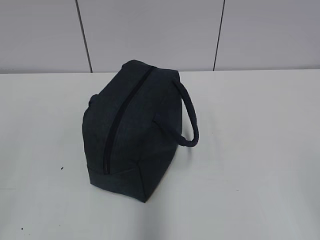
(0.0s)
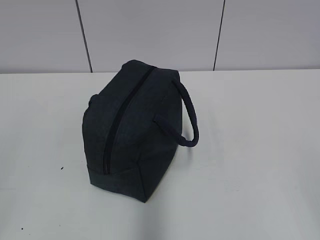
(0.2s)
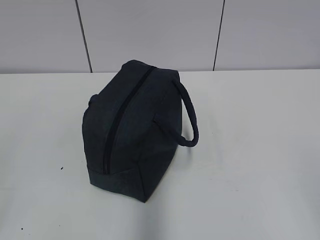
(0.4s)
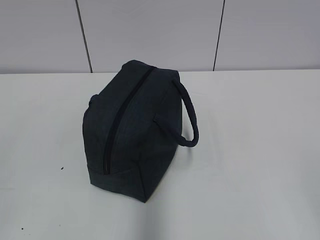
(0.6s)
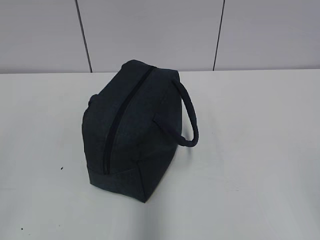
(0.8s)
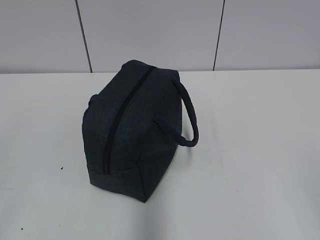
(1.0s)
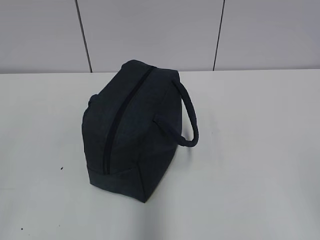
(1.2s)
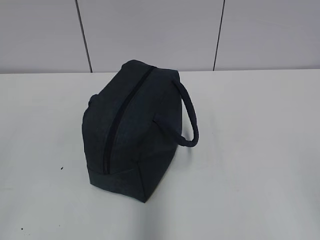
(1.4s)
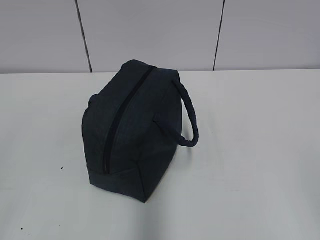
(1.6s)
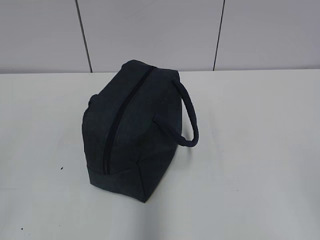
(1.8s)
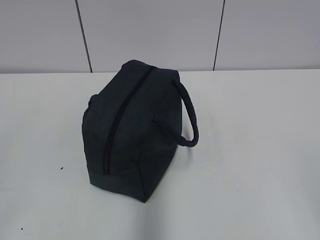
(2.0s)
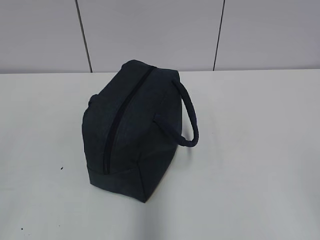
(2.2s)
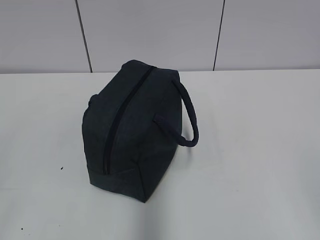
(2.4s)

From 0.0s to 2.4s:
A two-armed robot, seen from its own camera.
From 1.2s to 2.4s: Neither gripper changes place.

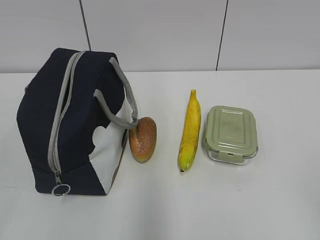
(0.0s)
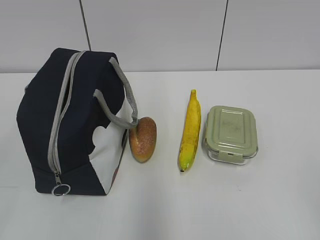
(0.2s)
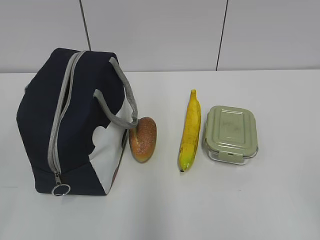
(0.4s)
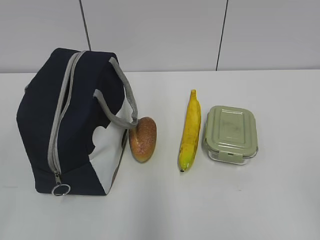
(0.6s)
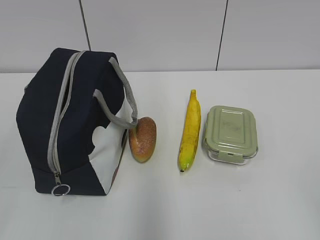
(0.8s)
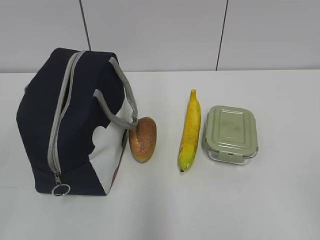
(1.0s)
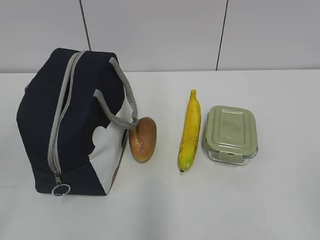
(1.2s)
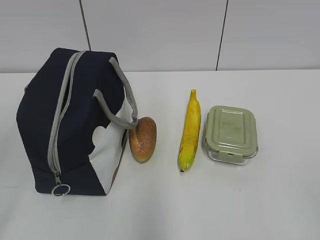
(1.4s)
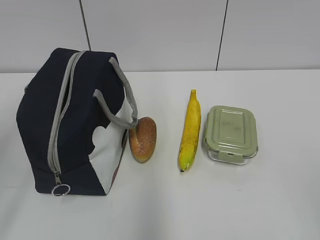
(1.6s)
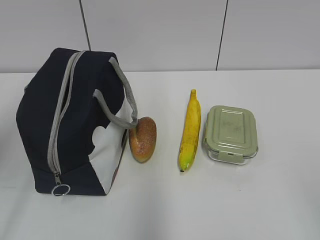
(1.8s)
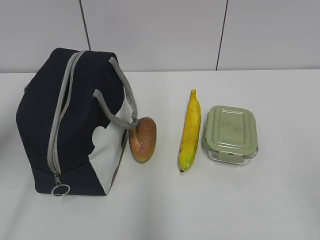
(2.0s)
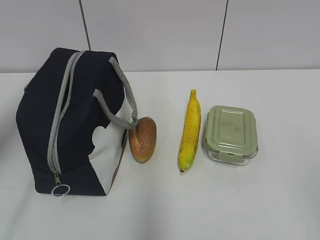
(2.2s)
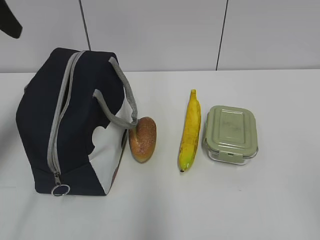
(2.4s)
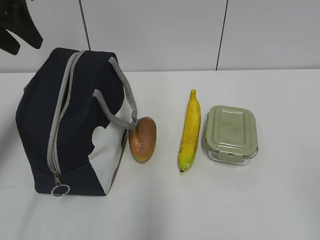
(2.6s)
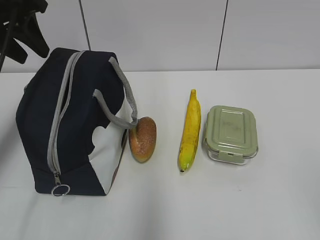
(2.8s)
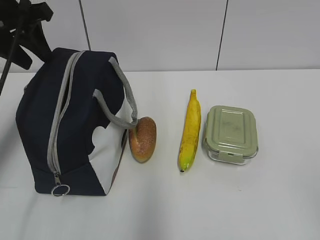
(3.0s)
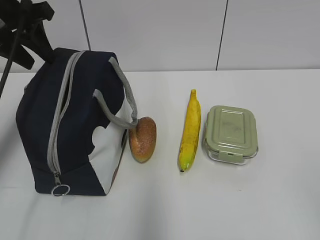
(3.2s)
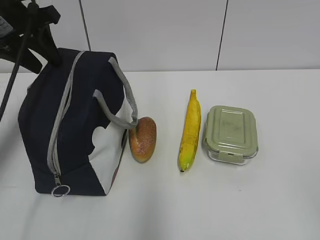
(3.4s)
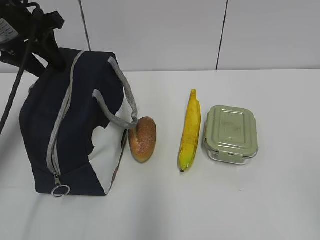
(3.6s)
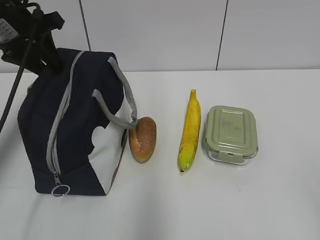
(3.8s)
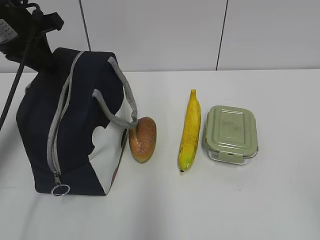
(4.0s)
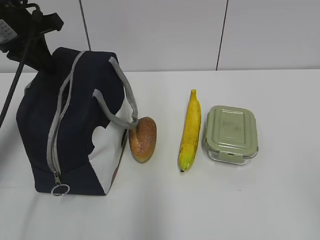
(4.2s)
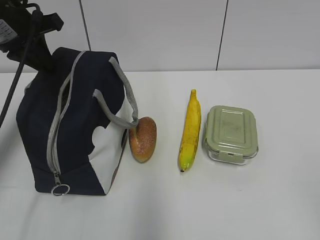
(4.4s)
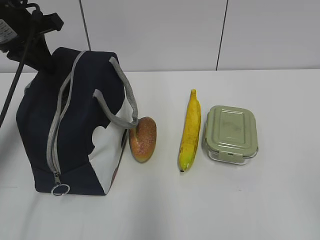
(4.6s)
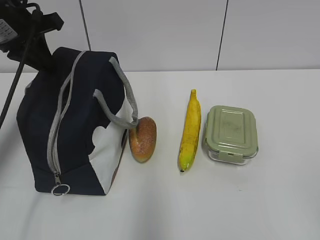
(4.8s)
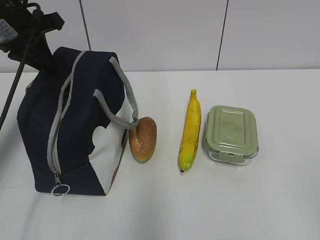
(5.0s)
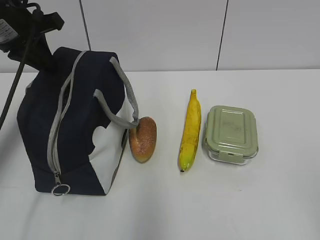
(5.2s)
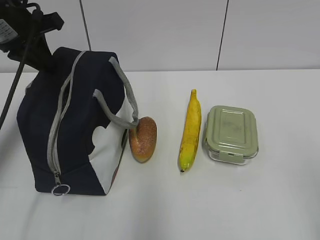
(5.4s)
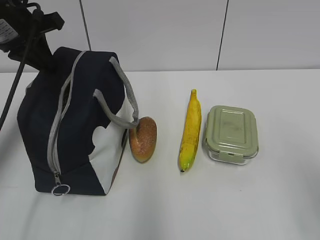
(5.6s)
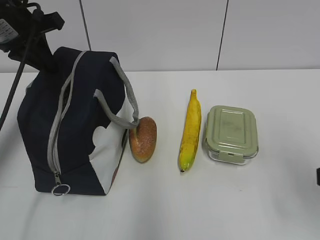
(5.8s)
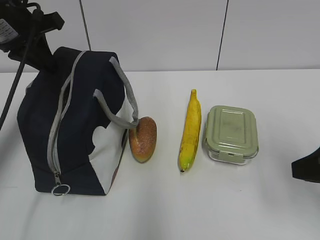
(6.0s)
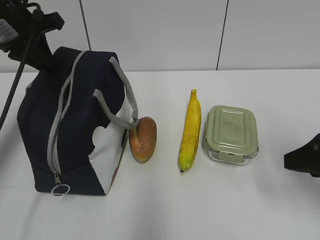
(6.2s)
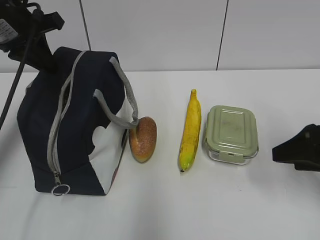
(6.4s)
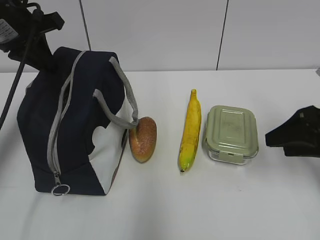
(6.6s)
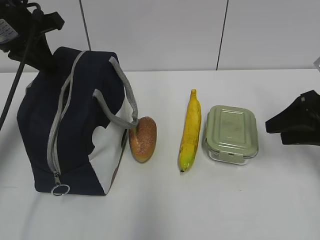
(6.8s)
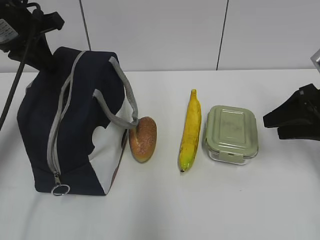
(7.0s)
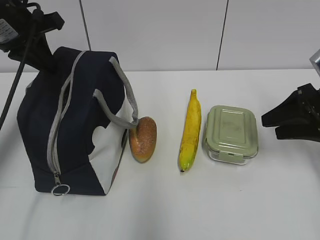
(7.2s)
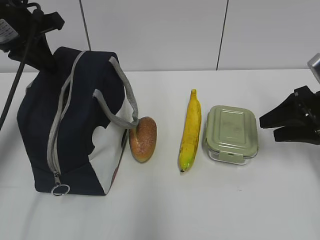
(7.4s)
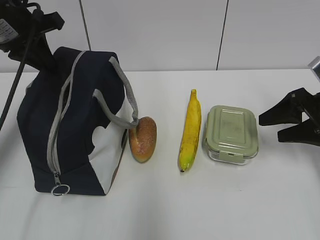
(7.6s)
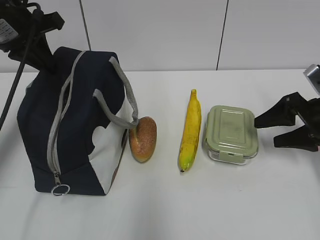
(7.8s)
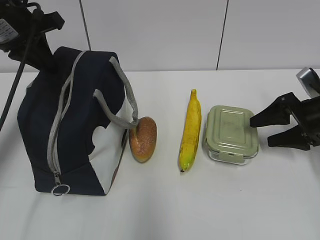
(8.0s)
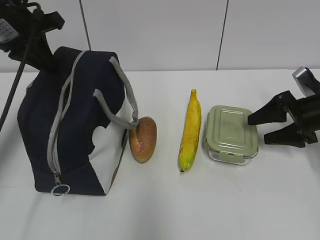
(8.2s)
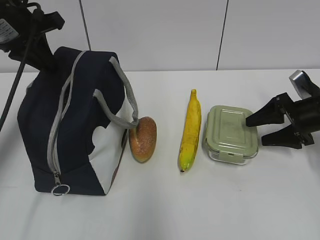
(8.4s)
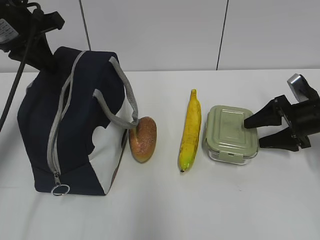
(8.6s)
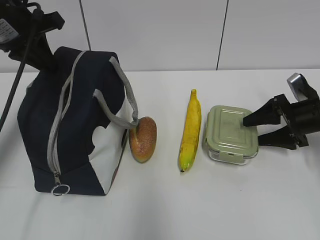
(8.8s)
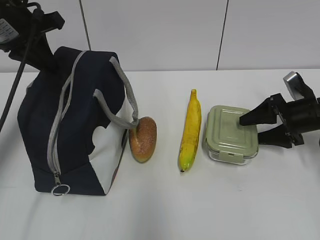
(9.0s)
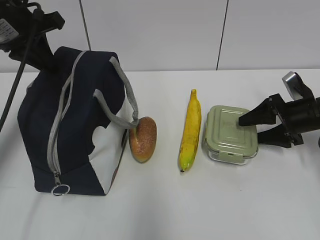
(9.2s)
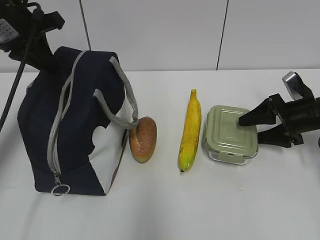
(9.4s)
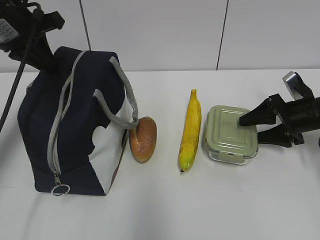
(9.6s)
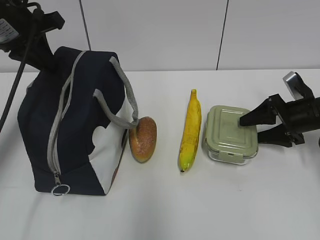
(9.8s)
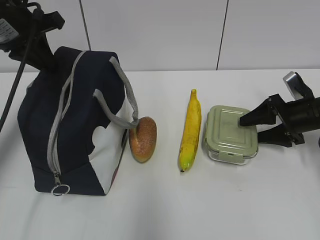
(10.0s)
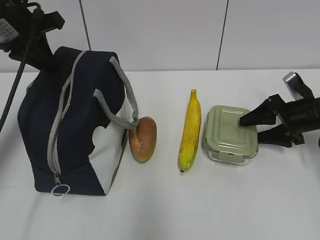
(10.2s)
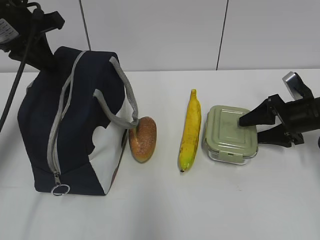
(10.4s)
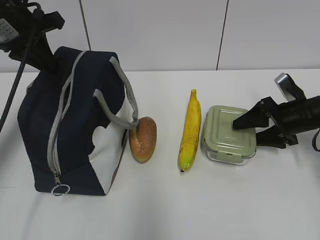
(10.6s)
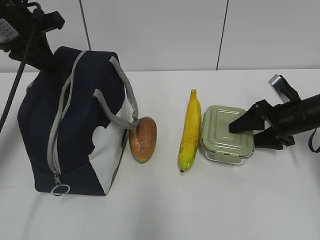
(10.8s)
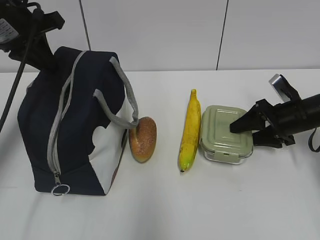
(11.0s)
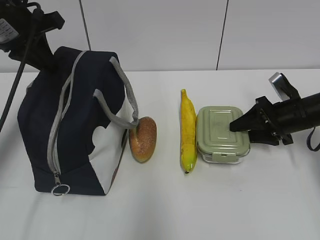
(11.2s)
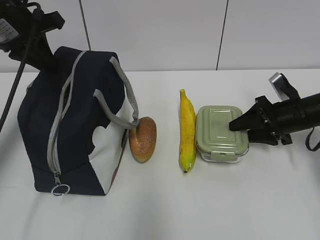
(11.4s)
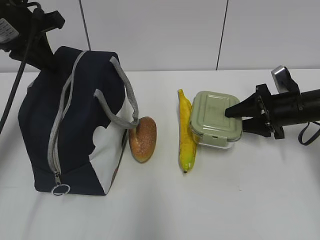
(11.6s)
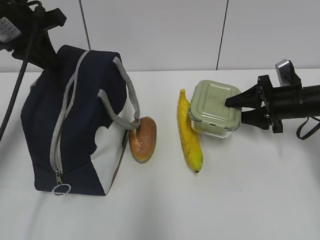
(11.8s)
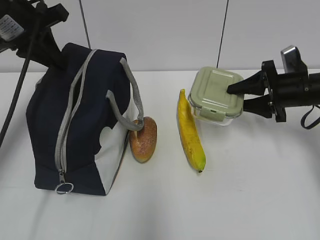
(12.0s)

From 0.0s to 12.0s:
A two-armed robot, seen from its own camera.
Step, from 0.0s to 4.4s: Grab the lunch bag with your left hand.
Step, from 4.8s to 11.4s: Grab the lunch box with your right hand.
From 1.6s to 3.0s: The left gripper is displaced forward by roughly 30 cm.
From 3.0s to 4.4s: The left gripper closes up.
From 4.4s to 6.0s: The right gripper moves forward, some 20 cm.
From 6.0s to 7.6s: The right gripper heads forward, covering approximately 15 cm.
From 7.6s to 9.0s: The right gripper shifts approximately 10 cm downward and forward.
From 9.0s to 10.4s: Both grippers stay about where they are.
From 10.4s to 12.0s: The right gripper ends up approximately 5 cm from where it was.

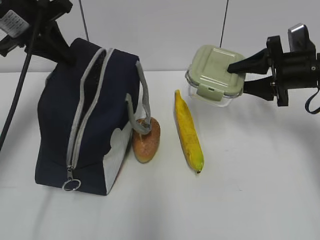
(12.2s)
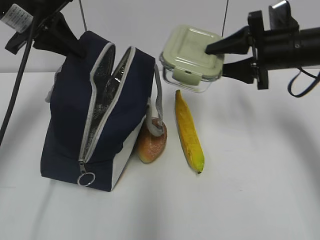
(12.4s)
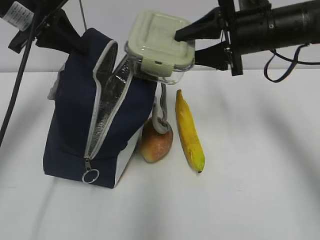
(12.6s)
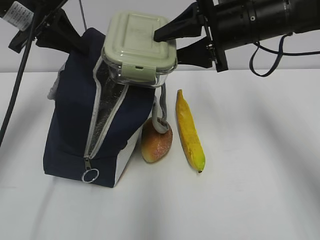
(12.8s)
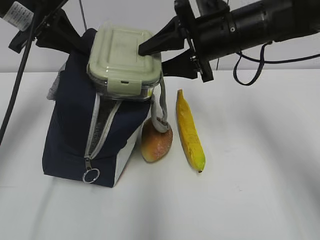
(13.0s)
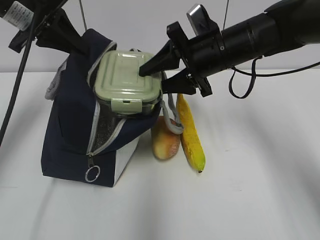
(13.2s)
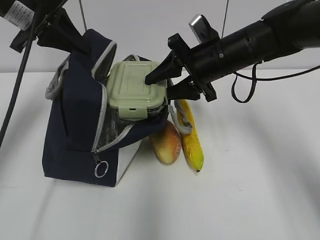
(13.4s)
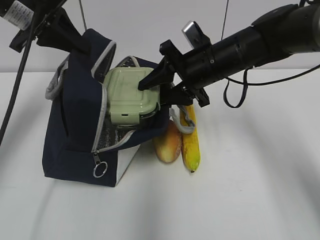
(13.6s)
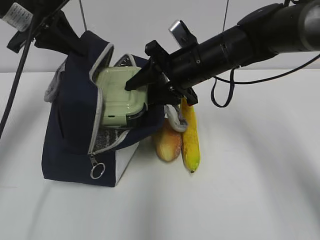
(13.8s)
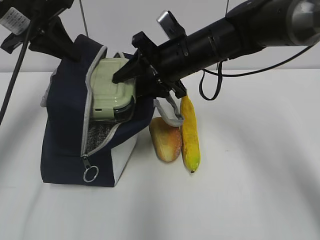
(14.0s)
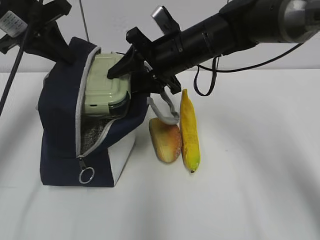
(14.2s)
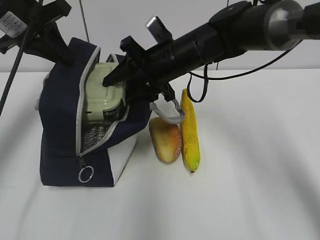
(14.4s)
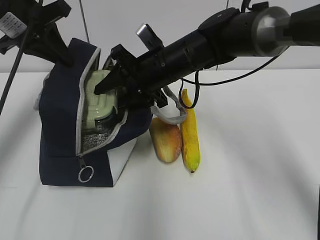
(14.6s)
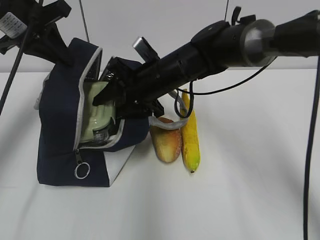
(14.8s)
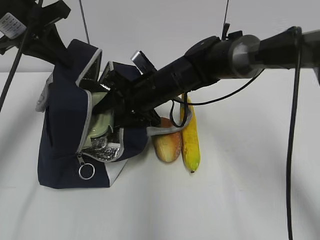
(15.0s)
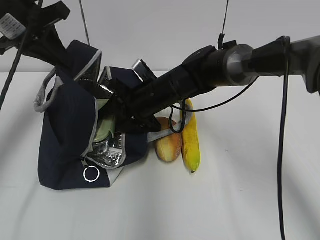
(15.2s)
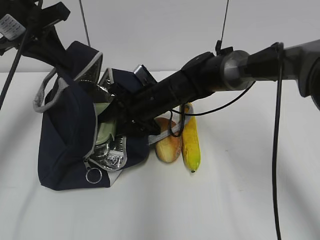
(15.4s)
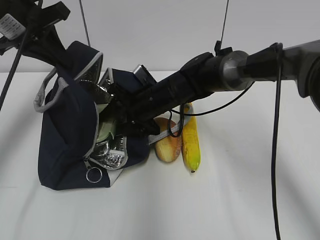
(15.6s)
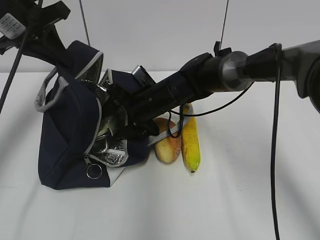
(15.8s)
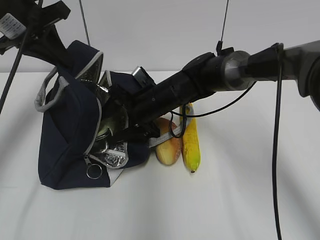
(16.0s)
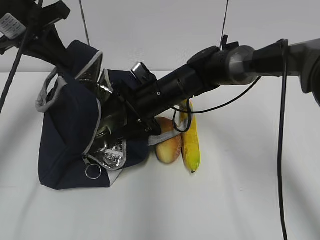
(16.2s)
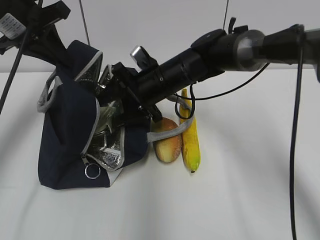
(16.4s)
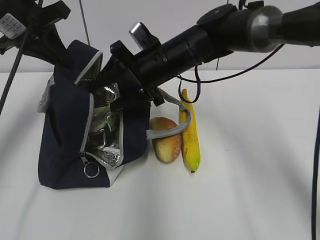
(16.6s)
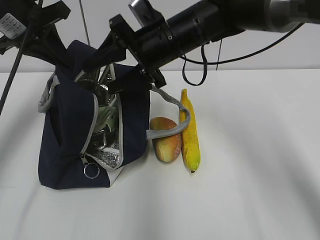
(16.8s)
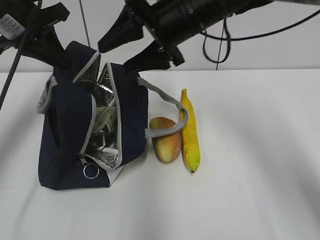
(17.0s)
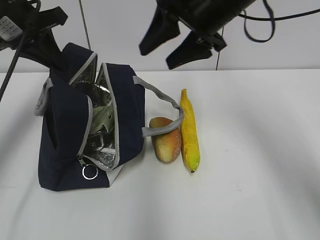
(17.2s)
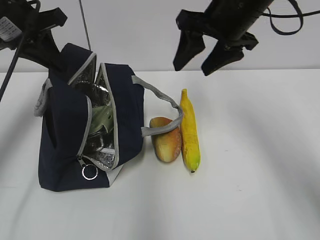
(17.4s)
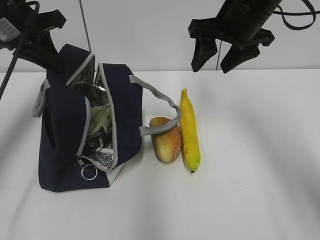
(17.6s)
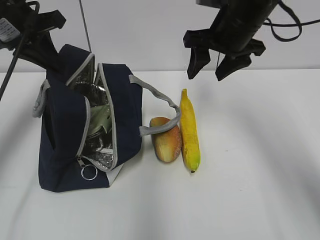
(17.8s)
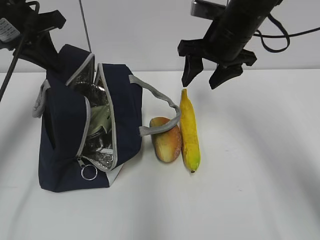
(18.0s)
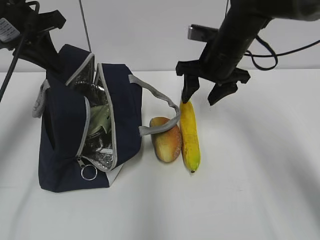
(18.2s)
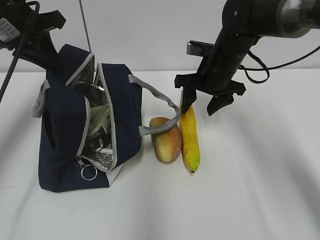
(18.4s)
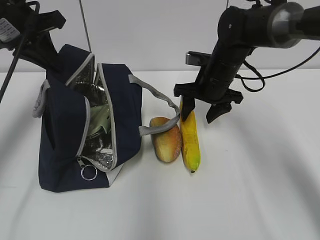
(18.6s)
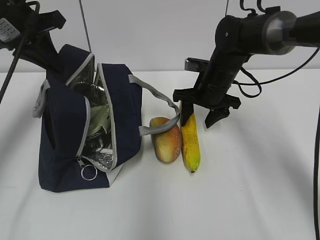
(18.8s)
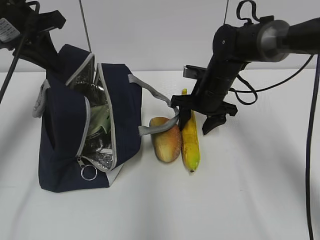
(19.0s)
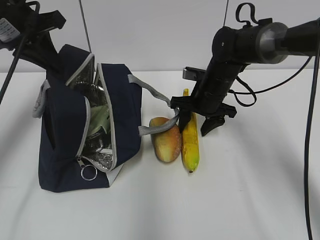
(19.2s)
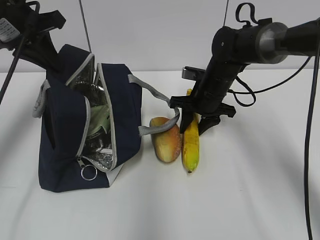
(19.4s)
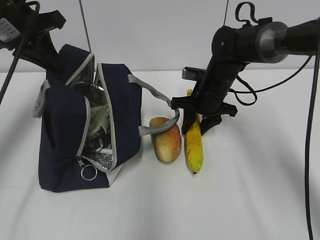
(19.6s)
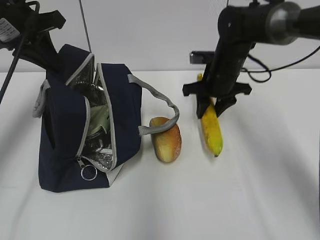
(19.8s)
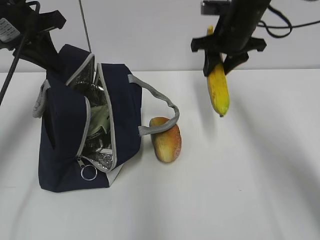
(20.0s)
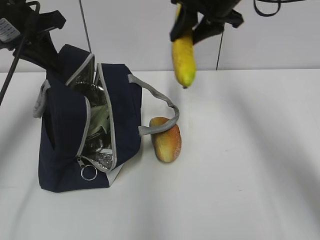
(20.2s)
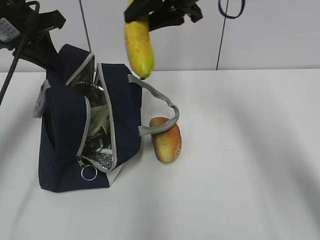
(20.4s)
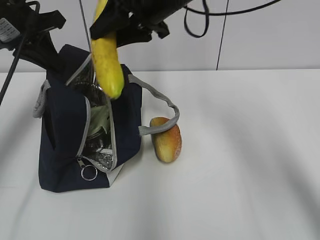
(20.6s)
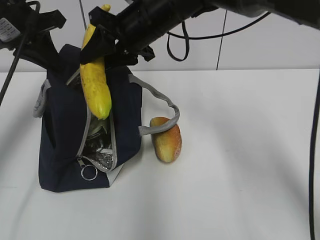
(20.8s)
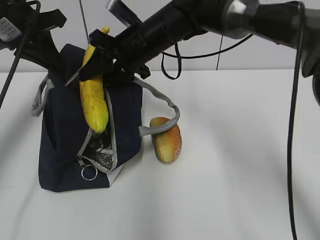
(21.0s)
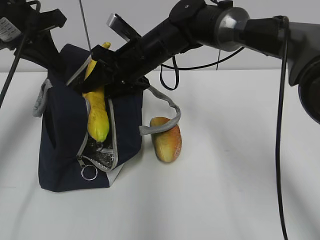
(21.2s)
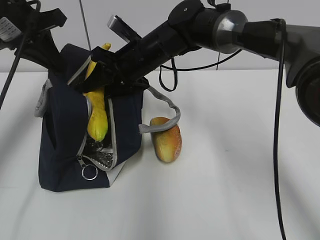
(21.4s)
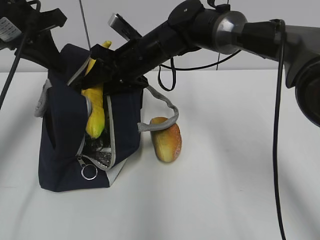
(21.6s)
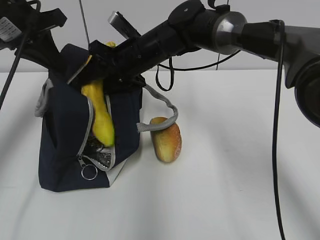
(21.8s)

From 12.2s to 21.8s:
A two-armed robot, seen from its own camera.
Step, from 12.2s to 16.0s: Place it into the bag with your right hand.
Step, from 16.4s to 19.6s: Grab the banana with your right hand.
From 12.2s to 13.8s: The right gripper is displaced to the left by approximately 20 cm.
From 13.8s to 15.4s: The right gripper goes some 10 cm downward and to the left.
From 15.4s to 17.0s: The right gripper travels upward by roughly 15 cm.
From 17.0s to 18.6s: The right gripper heads downward, to the right and forward, covering roughly 15 cm.
From 18.6s to 20.2s: The right gripper shifts some 15 cm upward.
From 20.2s to 21.8s: The right gripper goes about 20 cm to the left and downward.
